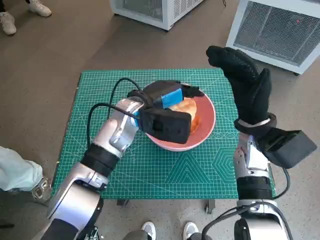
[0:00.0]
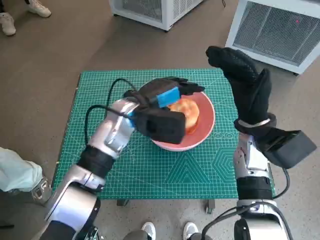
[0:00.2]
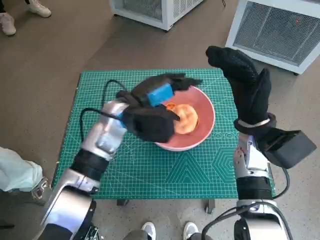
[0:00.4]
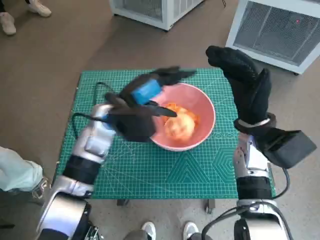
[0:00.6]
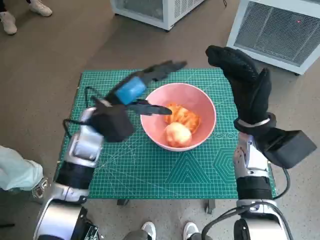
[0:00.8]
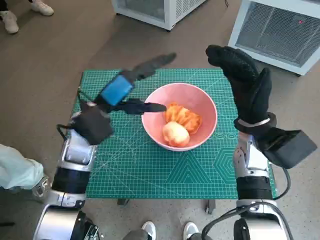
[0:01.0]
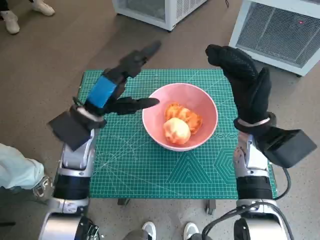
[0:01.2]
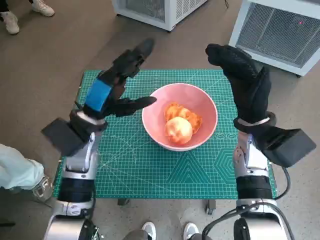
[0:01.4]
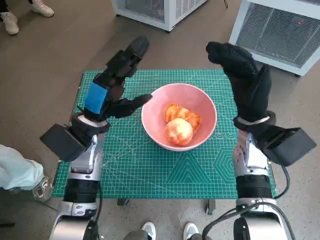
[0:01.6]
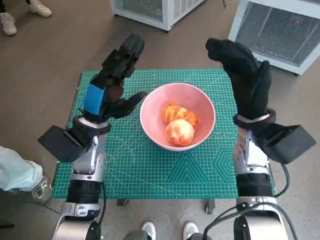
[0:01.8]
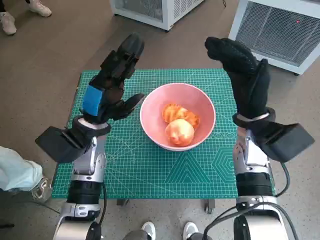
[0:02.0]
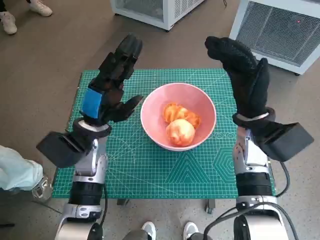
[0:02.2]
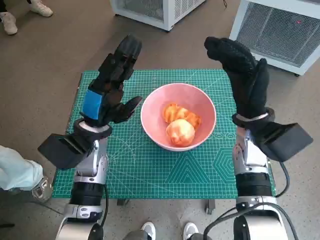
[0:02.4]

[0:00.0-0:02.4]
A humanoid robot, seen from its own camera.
Task of the whole recording: Push the bowl into the center of the table and put the bread into the bowl.
0:00.0 to 0:01.2: The left hand shifts about 10 cm to the left.
